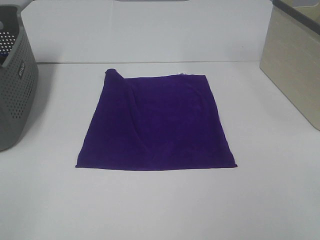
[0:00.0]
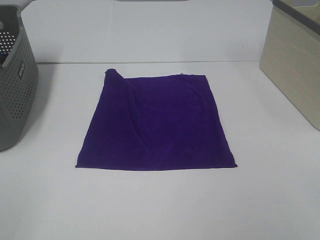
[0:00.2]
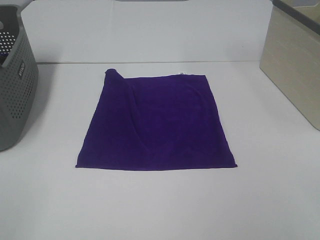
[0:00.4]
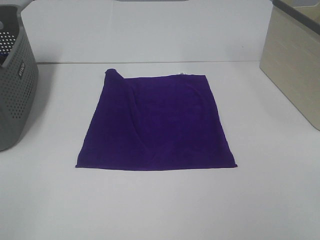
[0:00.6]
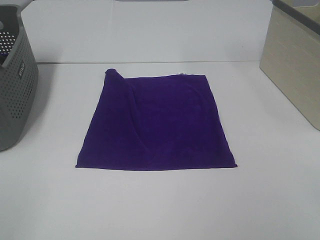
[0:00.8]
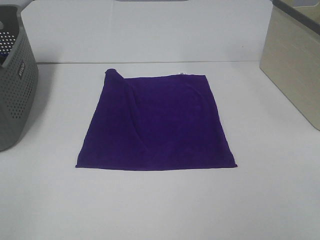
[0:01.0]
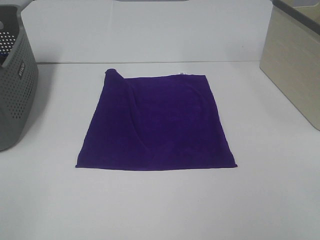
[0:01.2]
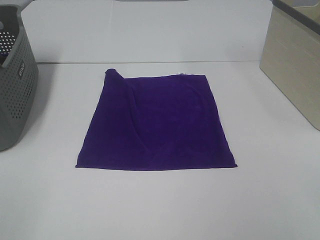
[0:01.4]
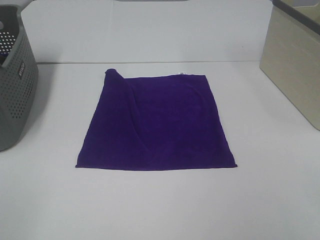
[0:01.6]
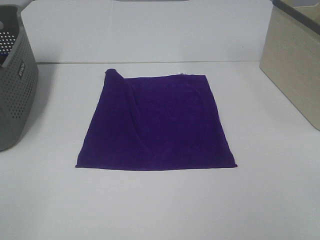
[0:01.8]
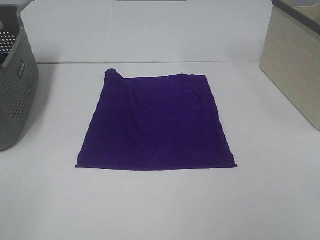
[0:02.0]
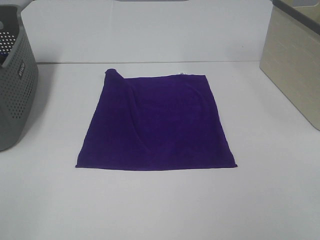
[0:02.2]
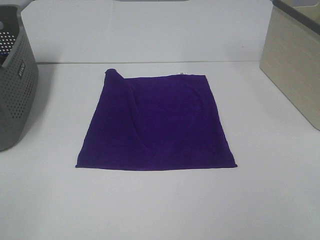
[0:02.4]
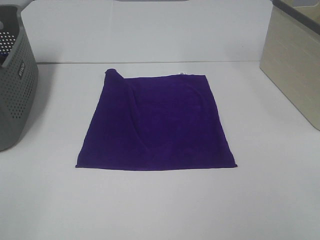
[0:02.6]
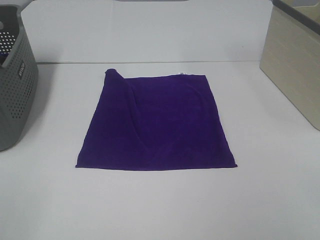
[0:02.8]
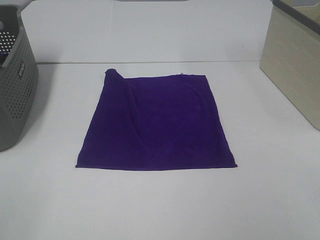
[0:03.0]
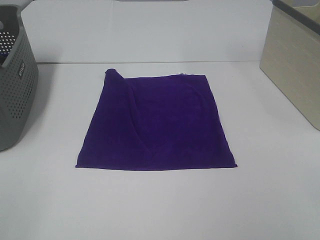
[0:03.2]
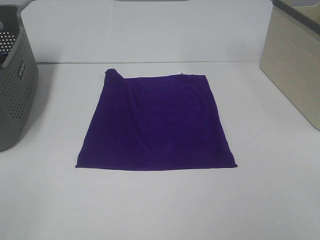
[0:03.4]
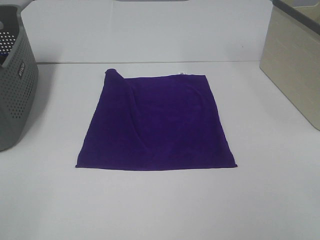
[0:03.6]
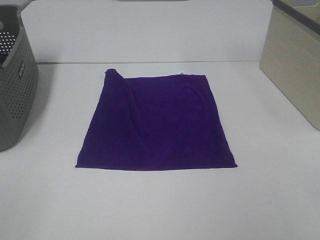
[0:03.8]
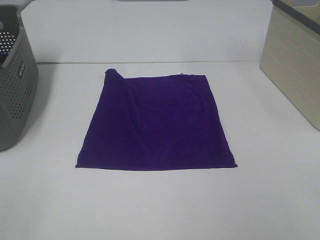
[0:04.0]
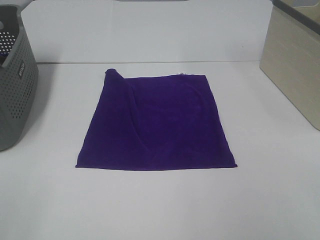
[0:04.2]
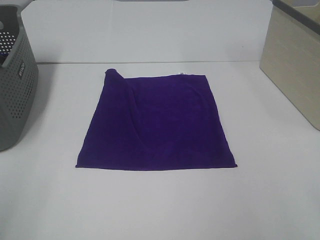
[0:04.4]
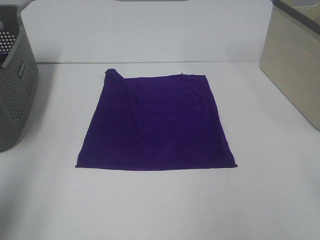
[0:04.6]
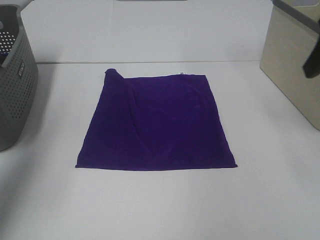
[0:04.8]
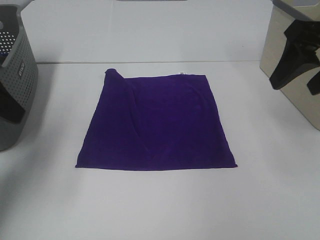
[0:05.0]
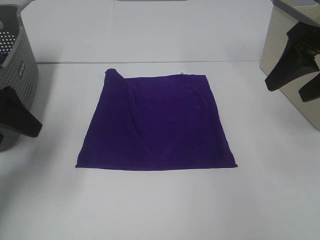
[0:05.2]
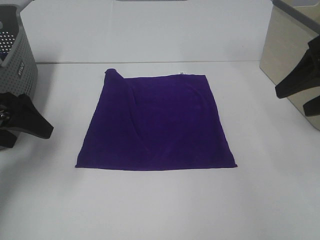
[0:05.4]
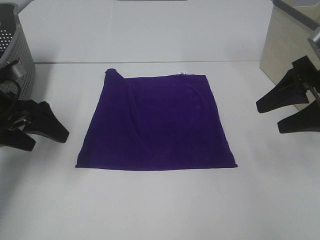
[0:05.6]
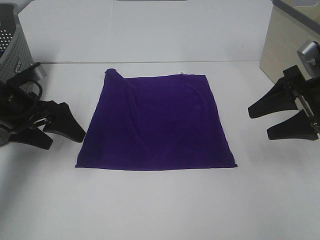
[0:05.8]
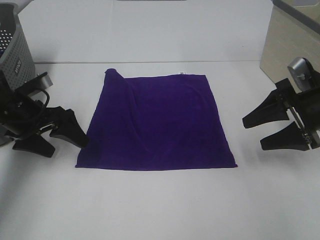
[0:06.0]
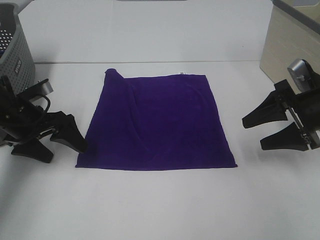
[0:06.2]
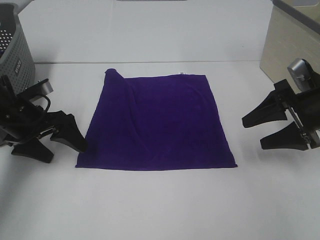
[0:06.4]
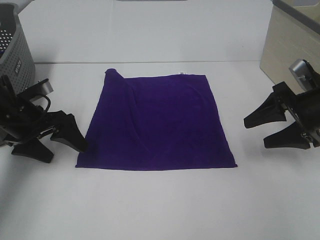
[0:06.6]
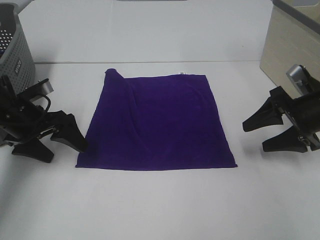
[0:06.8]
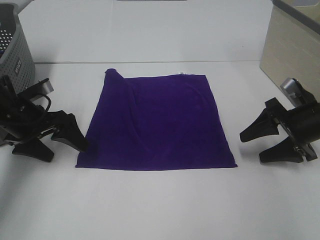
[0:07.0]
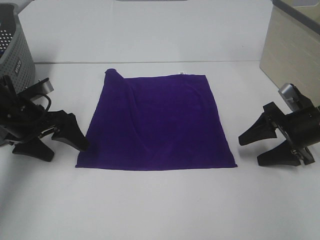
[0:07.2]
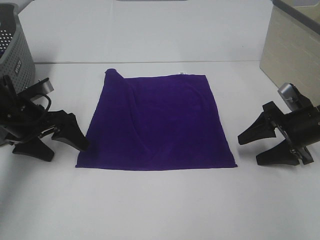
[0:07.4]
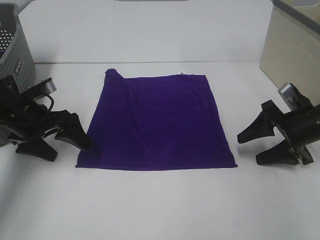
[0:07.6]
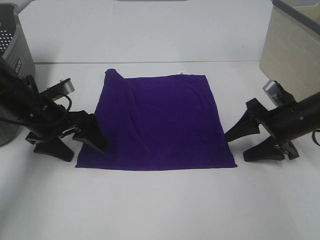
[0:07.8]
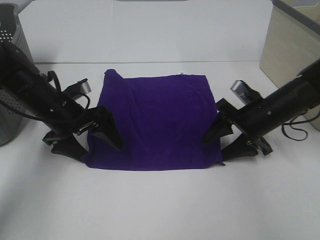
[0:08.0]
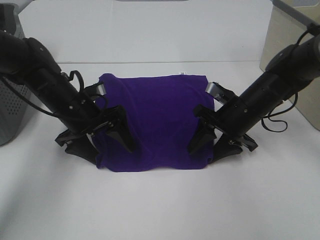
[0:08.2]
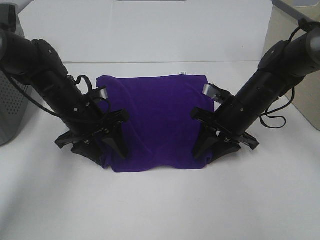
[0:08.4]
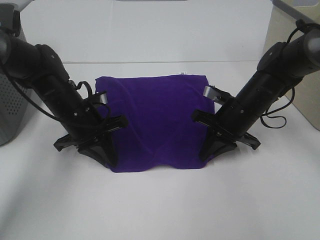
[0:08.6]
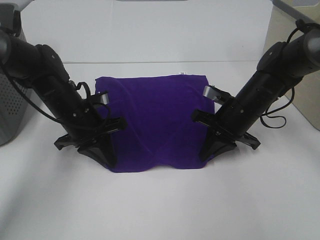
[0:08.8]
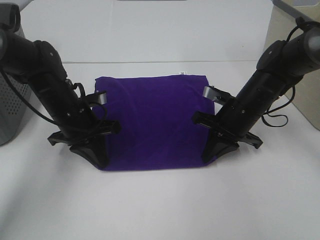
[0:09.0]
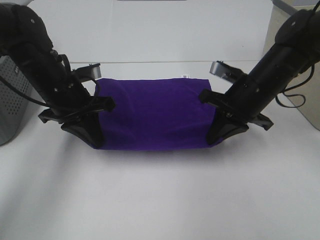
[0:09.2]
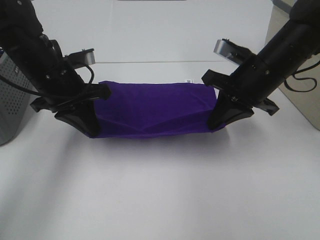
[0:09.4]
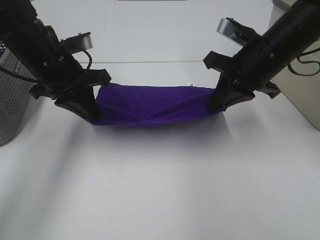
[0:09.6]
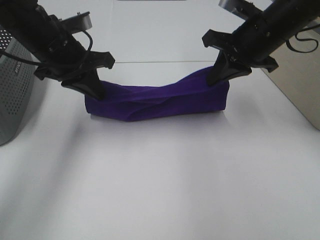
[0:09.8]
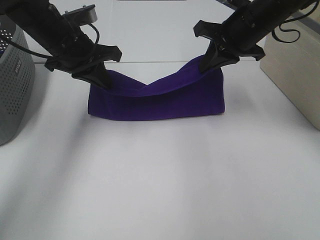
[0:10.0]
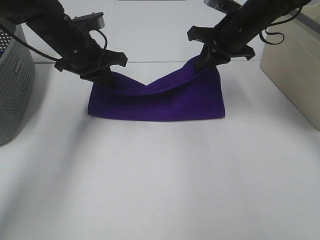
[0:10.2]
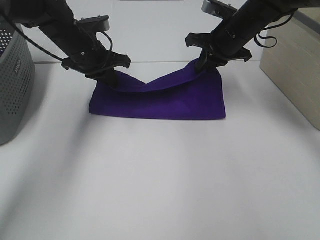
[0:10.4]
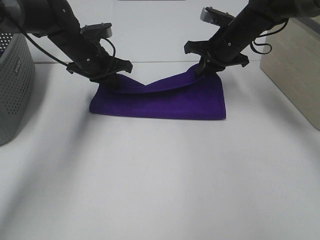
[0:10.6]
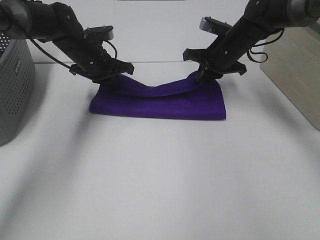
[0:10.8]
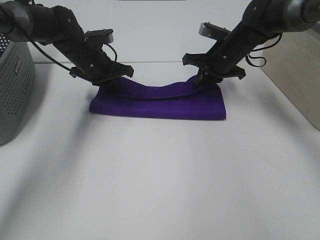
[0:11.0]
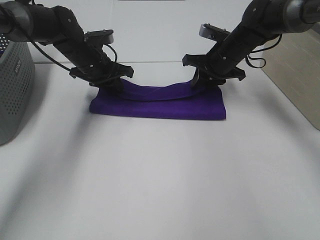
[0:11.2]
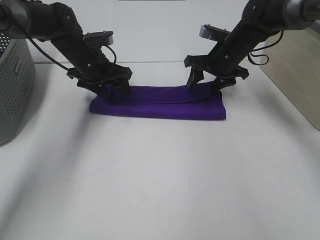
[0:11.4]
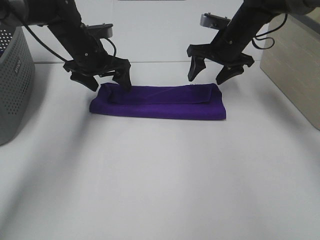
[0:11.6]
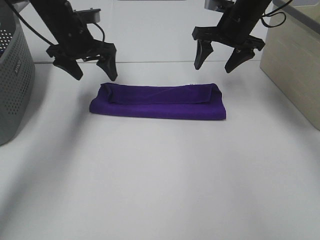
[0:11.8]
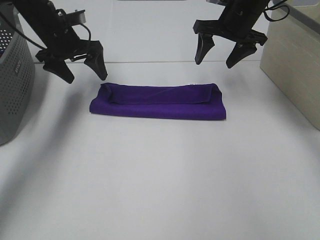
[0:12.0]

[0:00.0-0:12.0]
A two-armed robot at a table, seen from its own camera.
Task of the whole recording: Fold towels.
Step, 0:00.0 to 0:08.6: Left hand: grab the bottom left corner of purple towel.
Step, 0:00.0 to 0:08.6: Right hand: grab the bottom right corner of purple towel.
Step, 0:08.8 to 0:11.0: Left hand: fold the purple towel up.
Step, 0:08.8 to 0:11.0: Right hand: fold the purple towel up.
0:00.0 to 0:03.0: Both grippers stay about where they are.
0:04.4 to 0:06.0: Both grippers move forward and downward, about 30 cm.
0:06.0 to 0:07.6: The right gripper goes roughly 5 cm downward.
0:07.6 to 0:09.0: The right gripper shifts some 10 cm to the left, and closes up; the left gripper shifts approximately 10 cm to the right, and closes its fingers.
0:09.0 to 0:10.4: The two grippers go about 15 cm forward and upward.
0:10.4 to 0:12.0: The right gripper opens, while the left gripper moves to the left, approximately 5 cm, and opens up.

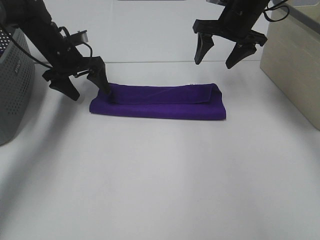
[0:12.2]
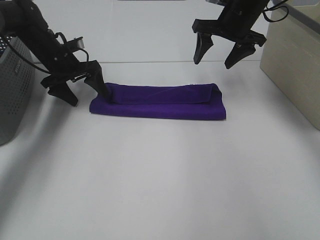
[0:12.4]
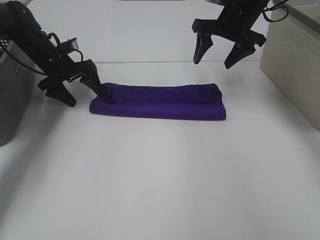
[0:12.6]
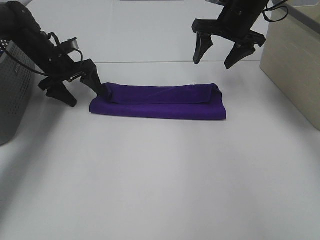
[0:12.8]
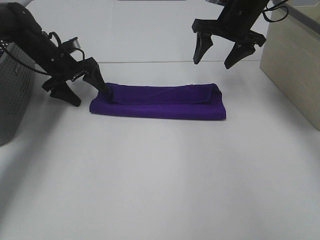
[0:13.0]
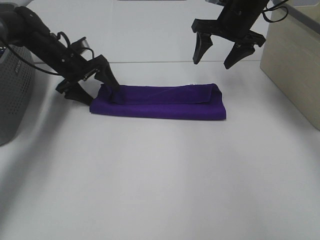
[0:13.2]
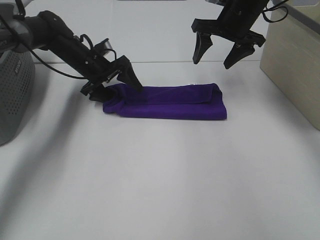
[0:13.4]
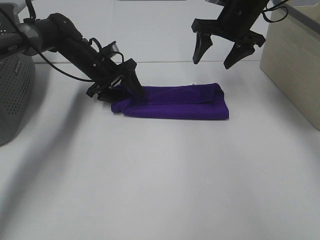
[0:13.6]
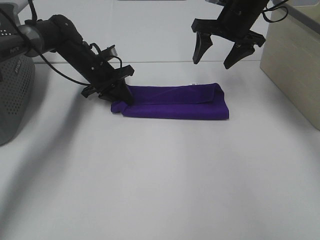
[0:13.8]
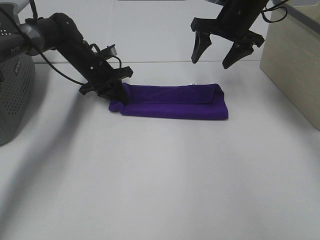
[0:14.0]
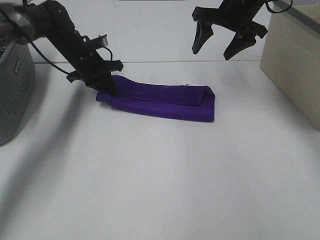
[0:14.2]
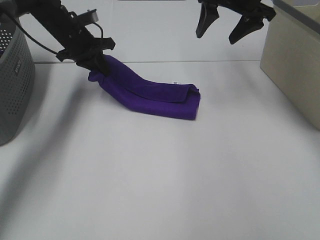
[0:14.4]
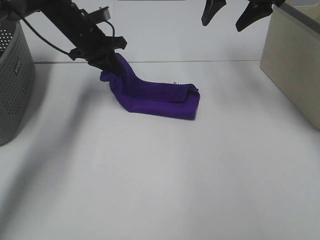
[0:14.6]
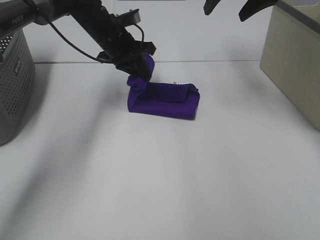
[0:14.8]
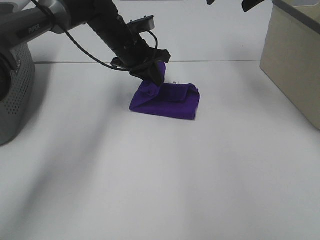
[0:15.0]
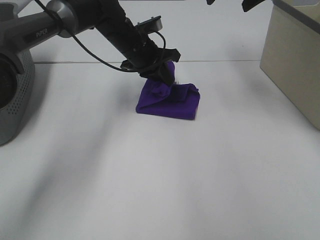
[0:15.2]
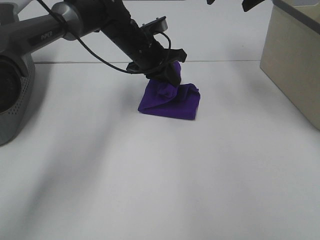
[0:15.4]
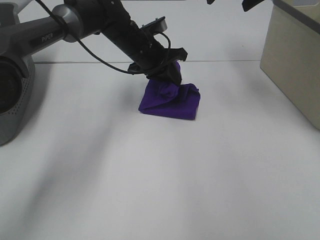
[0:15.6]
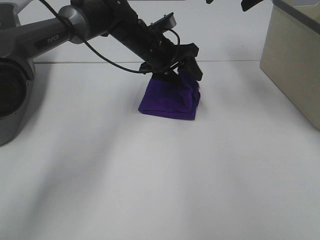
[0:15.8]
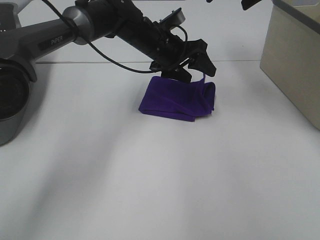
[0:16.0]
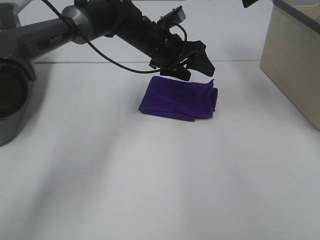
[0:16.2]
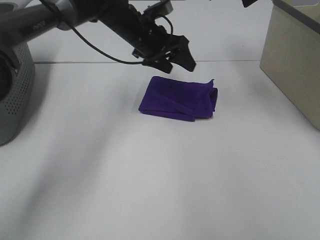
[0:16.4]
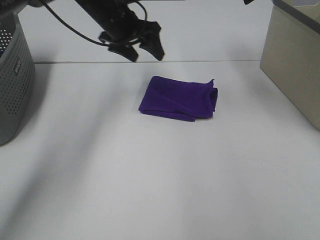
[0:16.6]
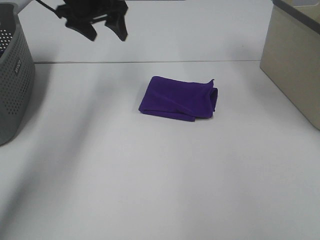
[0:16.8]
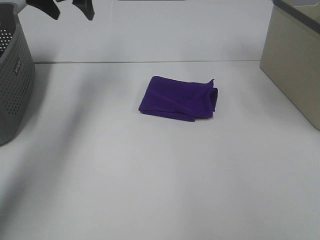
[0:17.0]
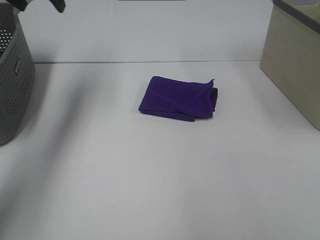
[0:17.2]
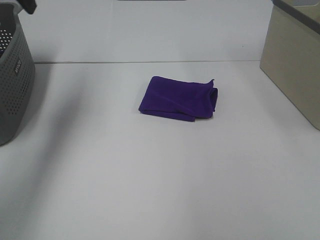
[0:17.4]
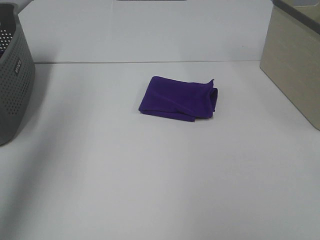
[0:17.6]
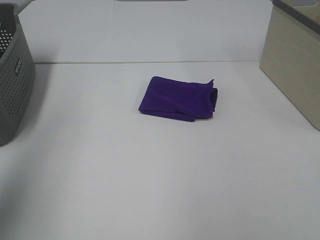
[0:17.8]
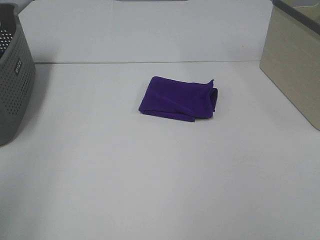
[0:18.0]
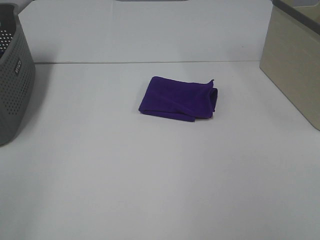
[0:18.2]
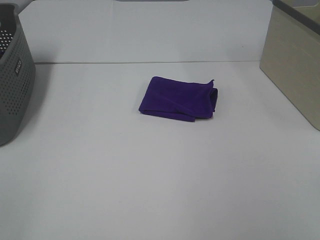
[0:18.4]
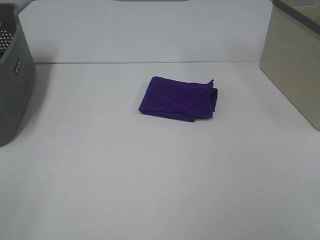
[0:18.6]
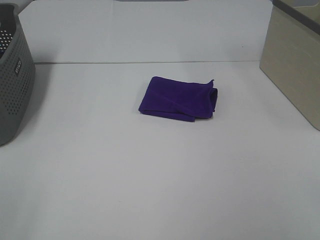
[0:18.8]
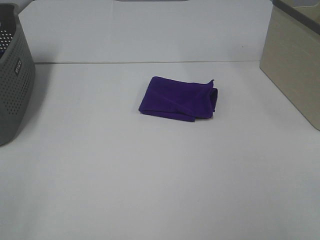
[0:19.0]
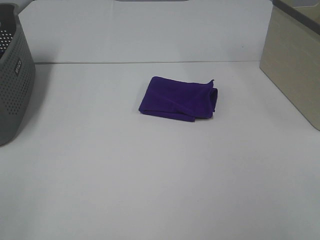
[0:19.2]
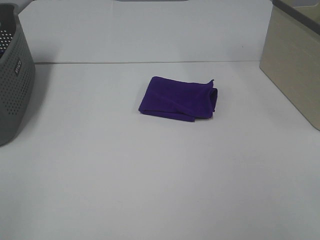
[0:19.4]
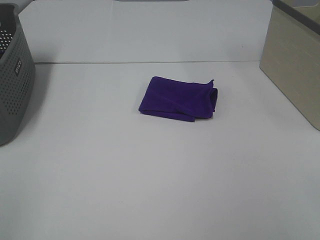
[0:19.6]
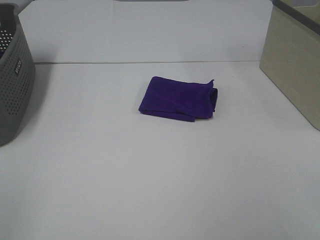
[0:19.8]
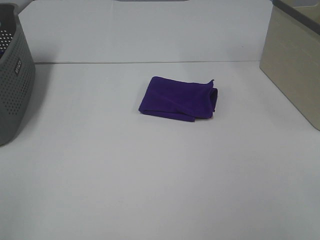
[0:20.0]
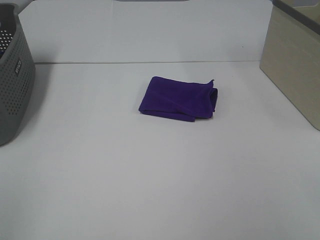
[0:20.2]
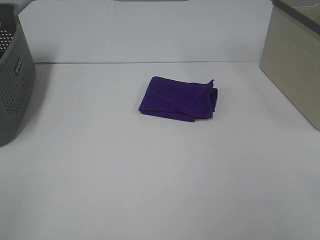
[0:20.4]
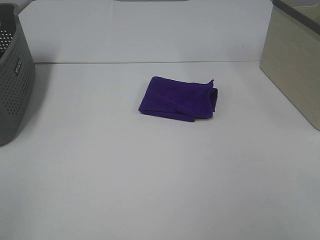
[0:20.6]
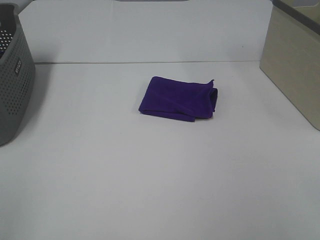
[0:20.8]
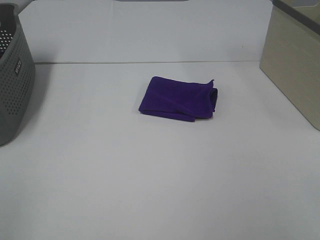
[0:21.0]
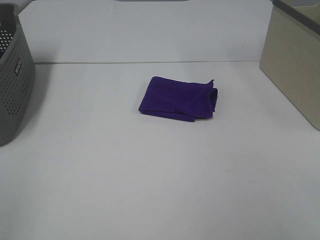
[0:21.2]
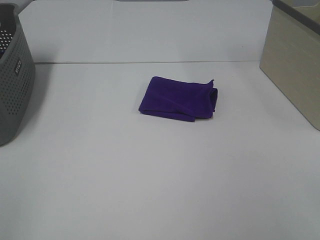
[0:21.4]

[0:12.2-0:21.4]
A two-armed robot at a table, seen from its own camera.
Task of the whole recording: Fold towels.
Step, 0:12.2 to 0:15.6: Left hand: fold the purple towel from left to right.
0:12.2 to 0:13.8: The left gripper moves to the right and downward, roughly 10 cm, and closes its fingers.
0:13.8 to 0:15.2: The left gripper travels to the right and upward by some 15 cm. The right gripper moves upward, about 15 cm.
0:15.2 to 0:16.8: The left gripper is displaced upward and to the left by approximately 15 cm, and opens its fingers.
0:16.8 to 0:18.4: The two grippers go approximately 50 cm backward.
0:19.8 to 0:21.4: Neither gripper changes place.

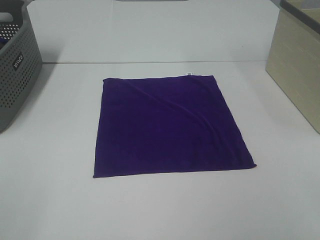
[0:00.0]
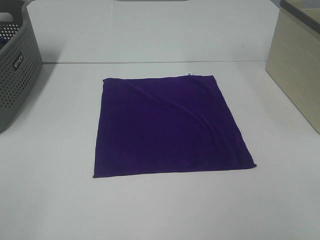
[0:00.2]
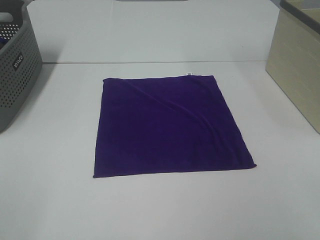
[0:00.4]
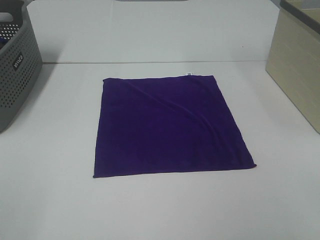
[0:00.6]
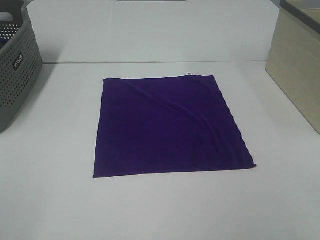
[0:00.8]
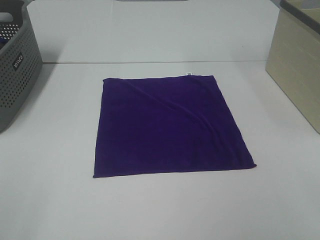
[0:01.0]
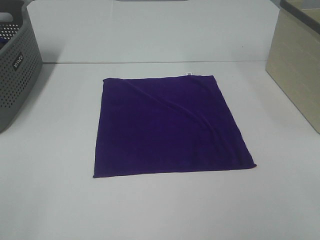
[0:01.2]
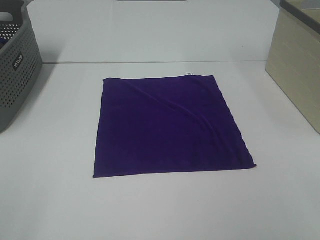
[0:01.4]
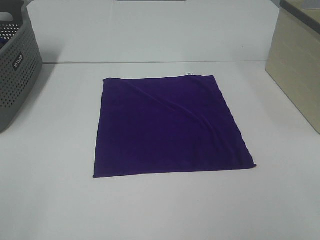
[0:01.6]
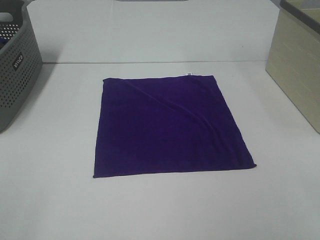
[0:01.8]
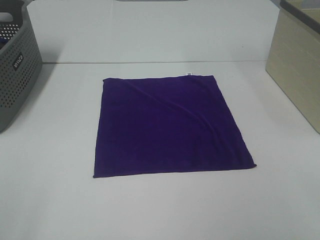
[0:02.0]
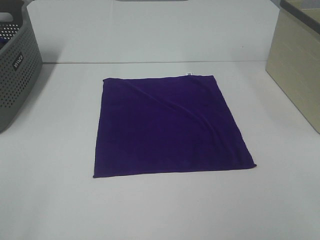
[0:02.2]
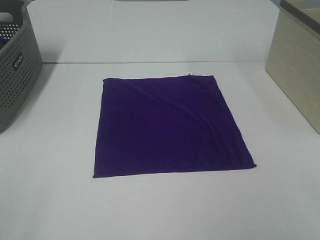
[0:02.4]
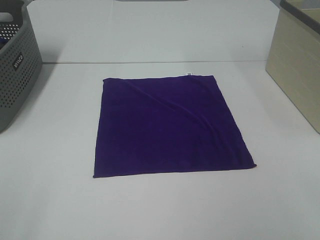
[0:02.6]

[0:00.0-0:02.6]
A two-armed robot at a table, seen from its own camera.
Task of the whole recording: Fold towels.
0:00.0 to 0:02.6: The two grippers keep their place.
